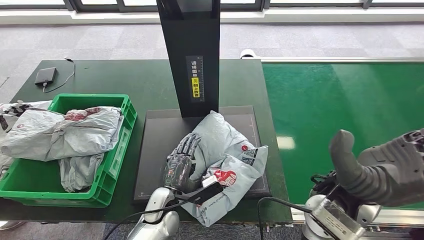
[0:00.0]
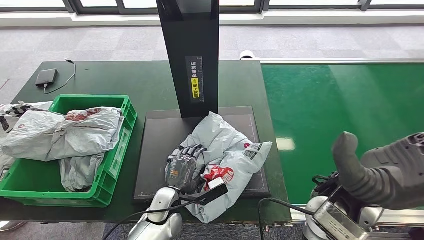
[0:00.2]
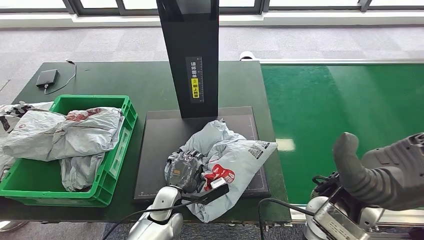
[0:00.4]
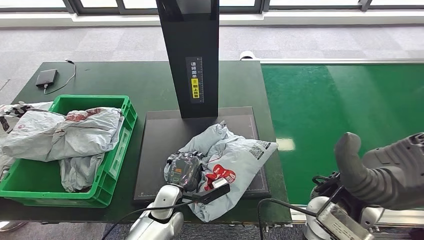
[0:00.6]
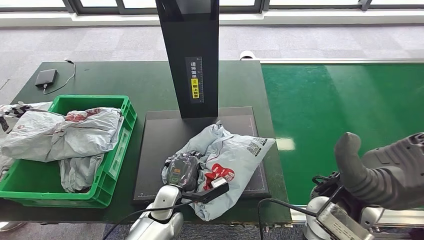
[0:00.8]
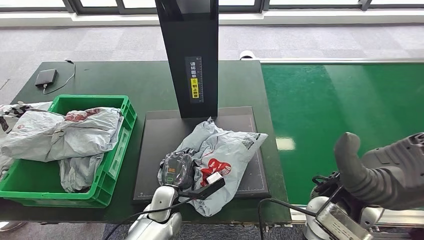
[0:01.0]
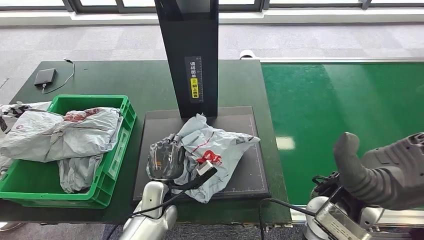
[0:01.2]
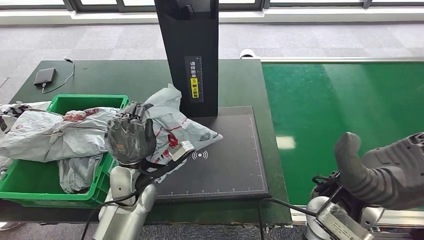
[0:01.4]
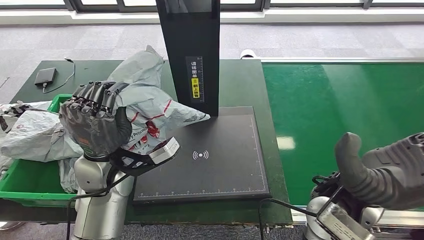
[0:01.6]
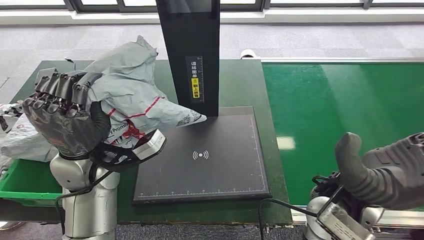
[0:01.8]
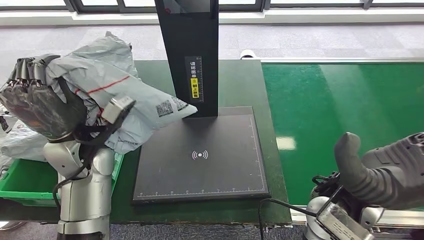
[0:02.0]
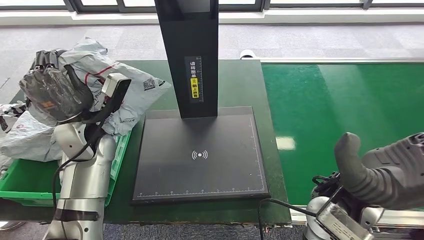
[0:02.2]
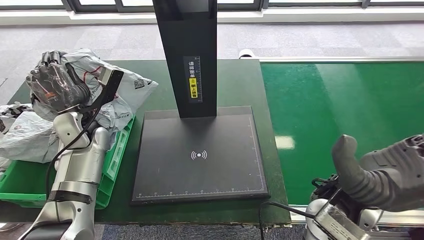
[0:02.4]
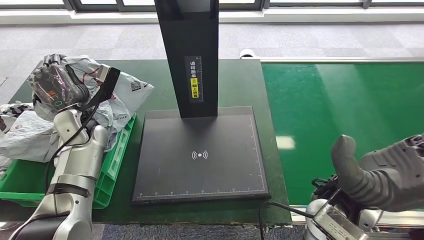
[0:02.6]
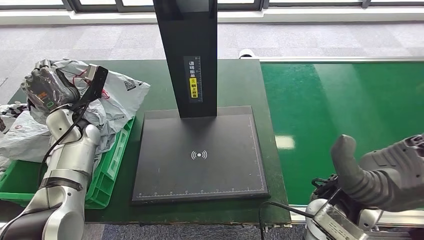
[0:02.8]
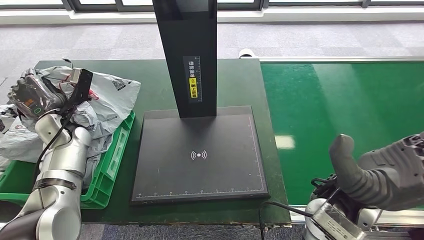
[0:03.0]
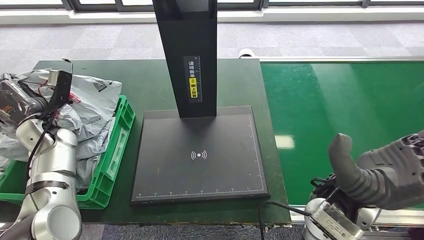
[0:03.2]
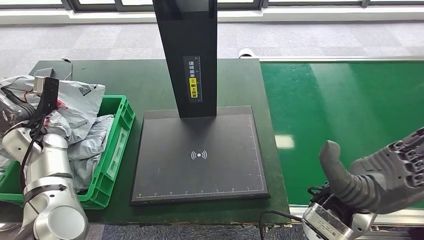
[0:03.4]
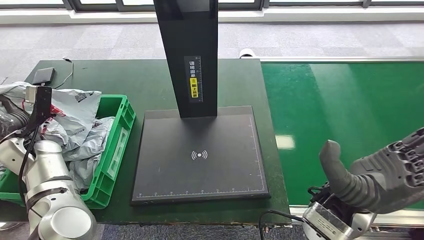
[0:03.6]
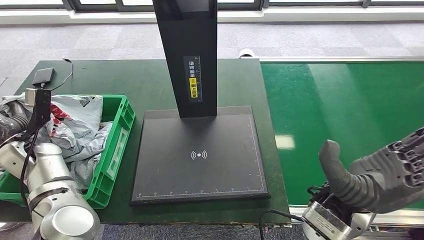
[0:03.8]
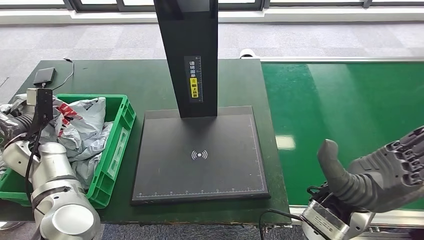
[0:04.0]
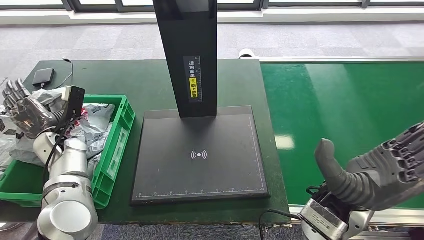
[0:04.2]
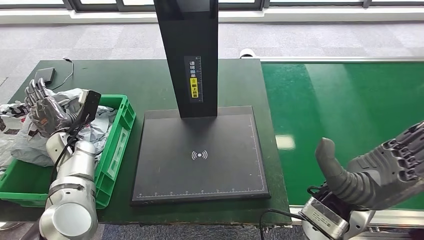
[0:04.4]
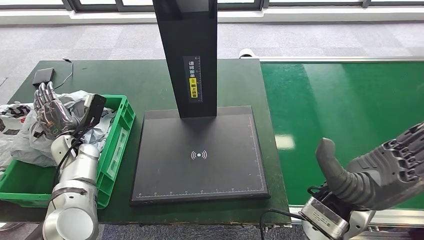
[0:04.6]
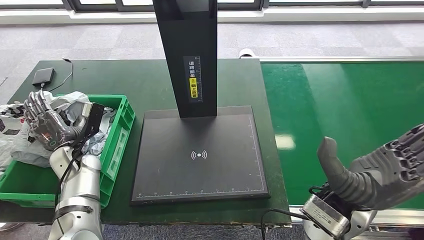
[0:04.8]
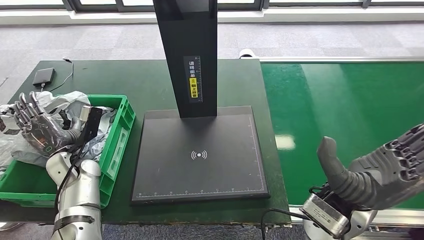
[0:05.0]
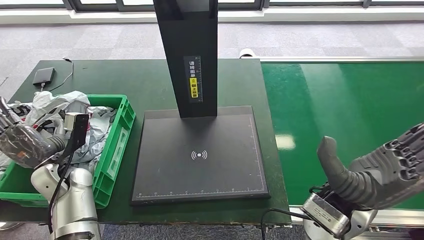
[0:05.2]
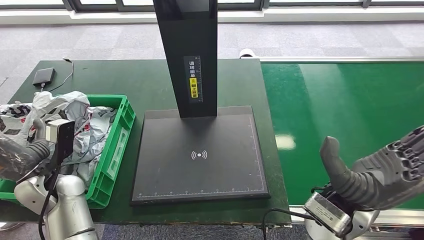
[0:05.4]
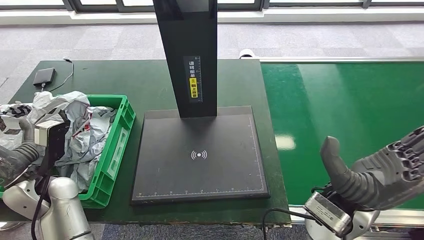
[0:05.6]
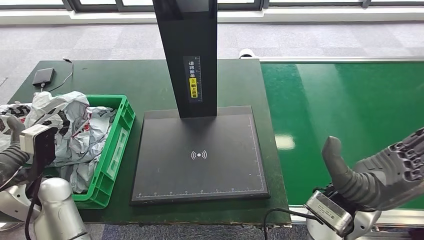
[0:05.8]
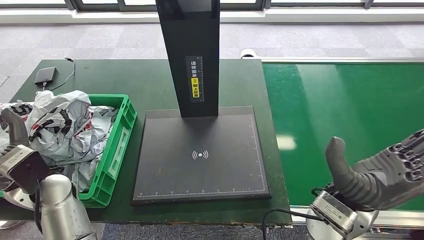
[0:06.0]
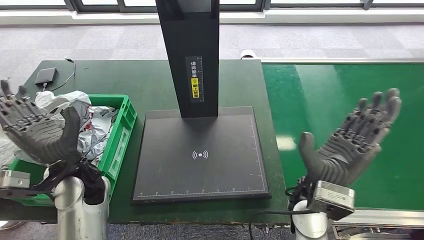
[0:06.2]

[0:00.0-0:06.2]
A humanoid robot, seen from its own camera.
Step, 0:00.0 to 0:02.0: Pick up the parcel from the inbound machine.
Step, 0:02.2 to 0:06.2: Place the parcel into the delivery box.
0:03.2 to 0:04.6: The left hand moves downward, approximately 5 cm.
